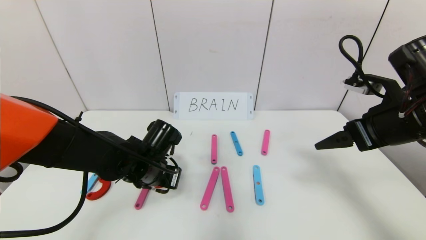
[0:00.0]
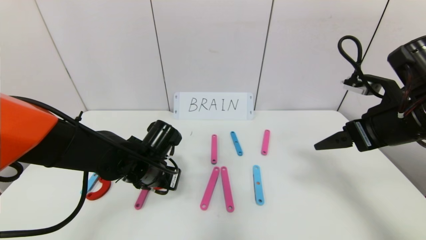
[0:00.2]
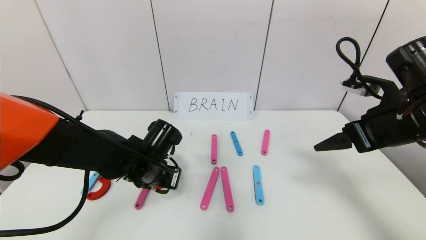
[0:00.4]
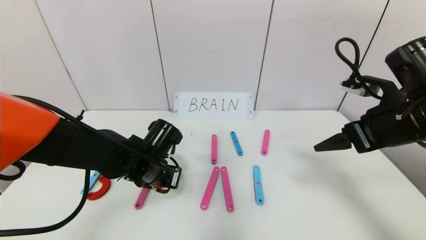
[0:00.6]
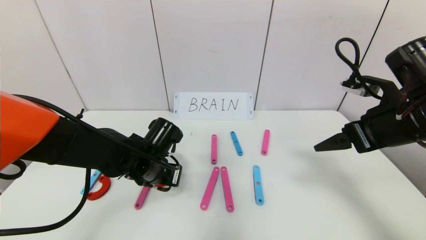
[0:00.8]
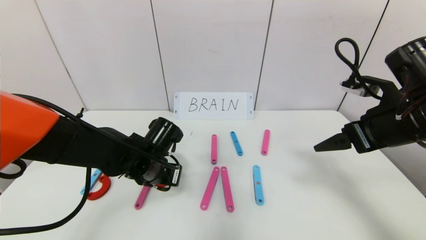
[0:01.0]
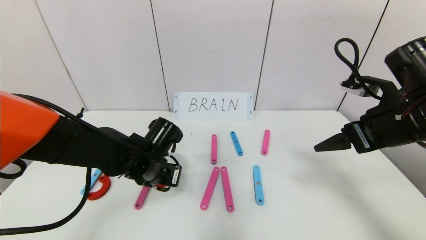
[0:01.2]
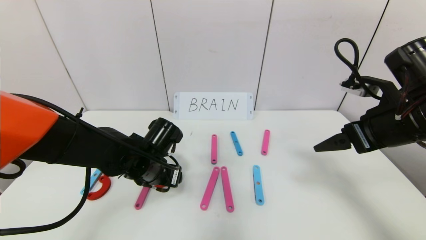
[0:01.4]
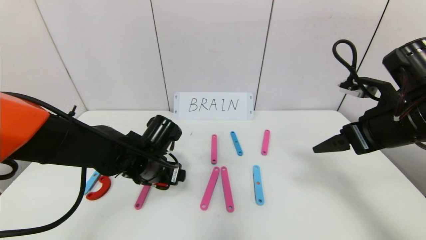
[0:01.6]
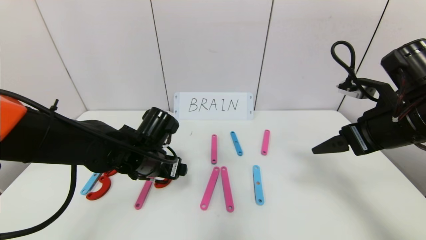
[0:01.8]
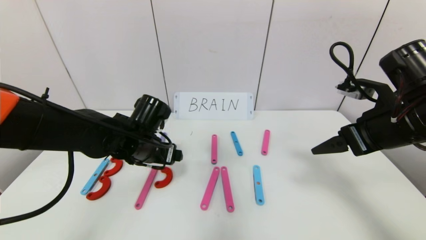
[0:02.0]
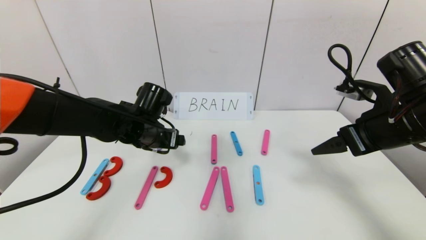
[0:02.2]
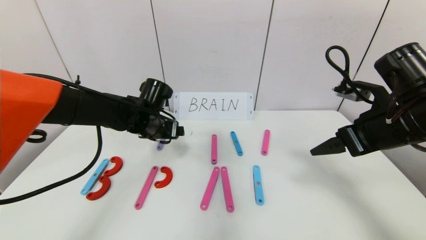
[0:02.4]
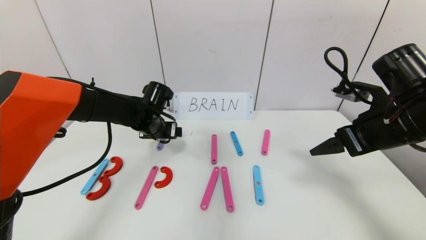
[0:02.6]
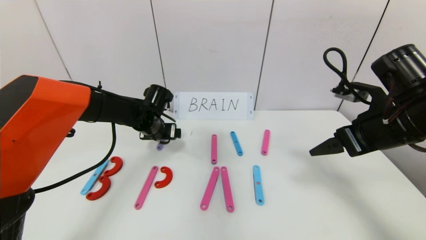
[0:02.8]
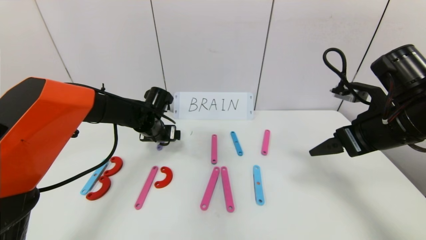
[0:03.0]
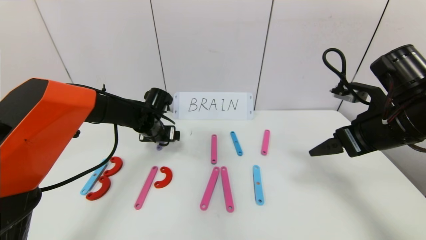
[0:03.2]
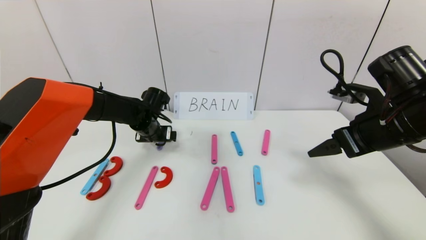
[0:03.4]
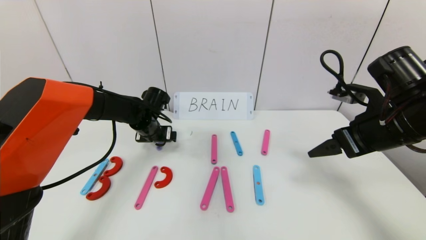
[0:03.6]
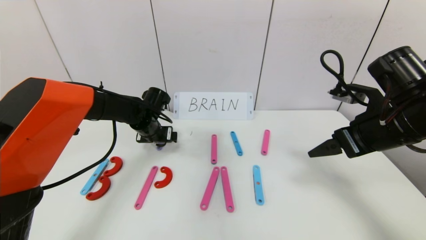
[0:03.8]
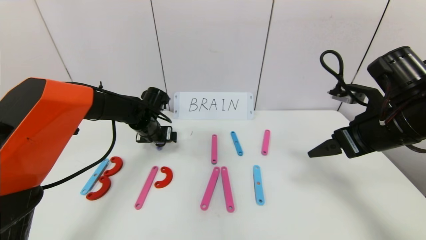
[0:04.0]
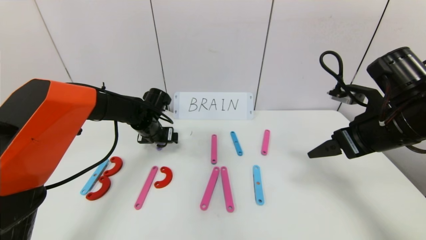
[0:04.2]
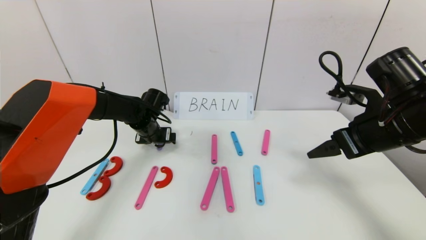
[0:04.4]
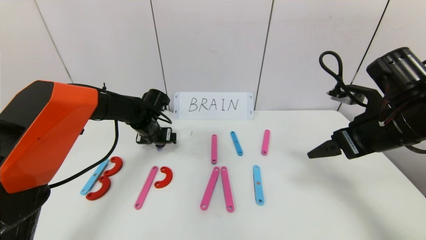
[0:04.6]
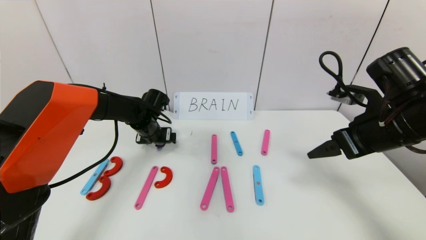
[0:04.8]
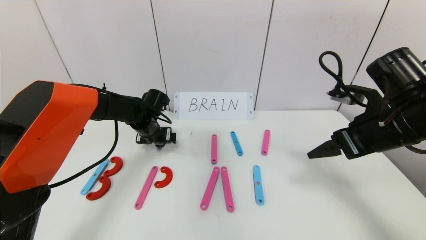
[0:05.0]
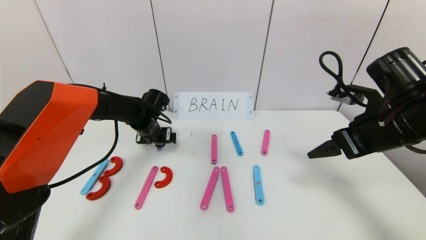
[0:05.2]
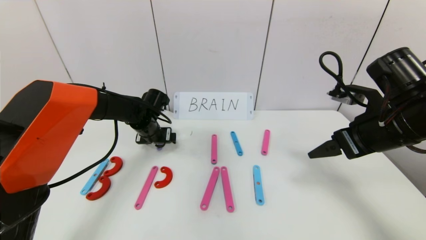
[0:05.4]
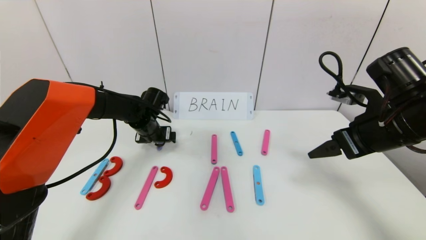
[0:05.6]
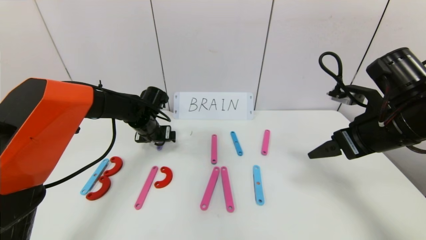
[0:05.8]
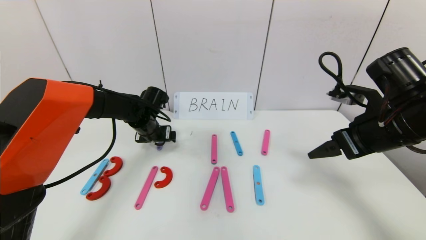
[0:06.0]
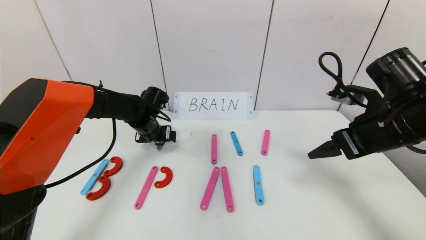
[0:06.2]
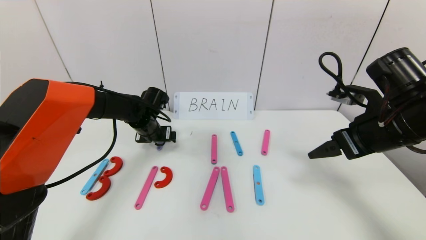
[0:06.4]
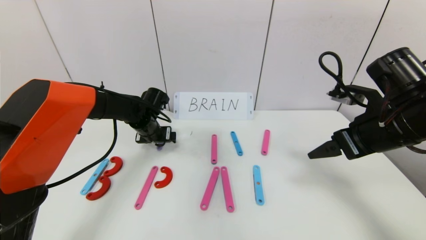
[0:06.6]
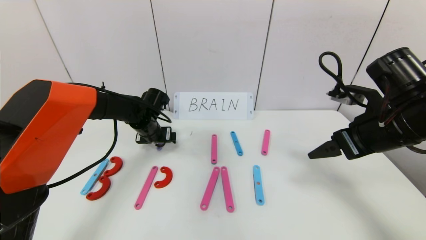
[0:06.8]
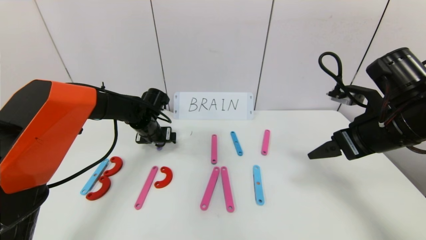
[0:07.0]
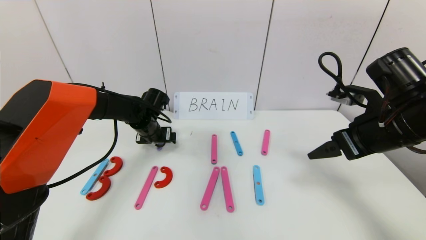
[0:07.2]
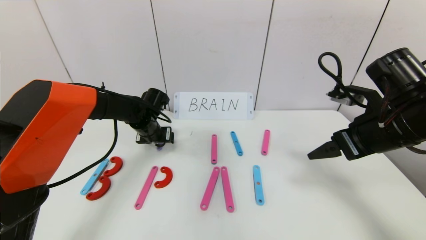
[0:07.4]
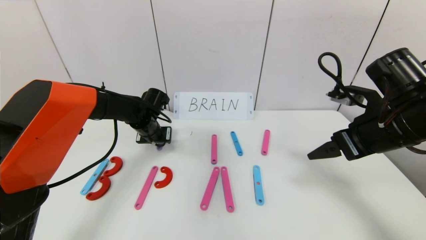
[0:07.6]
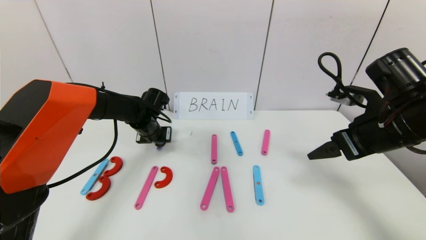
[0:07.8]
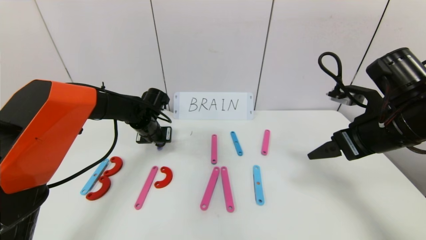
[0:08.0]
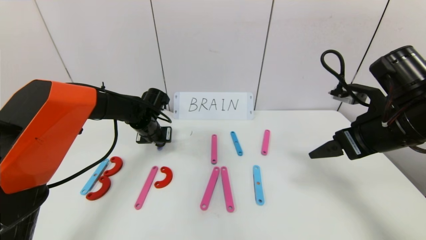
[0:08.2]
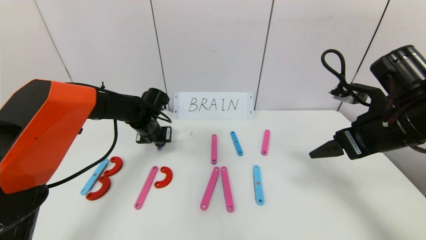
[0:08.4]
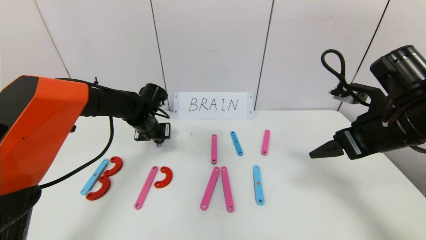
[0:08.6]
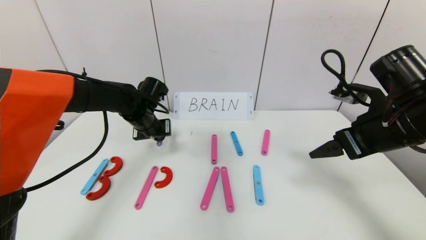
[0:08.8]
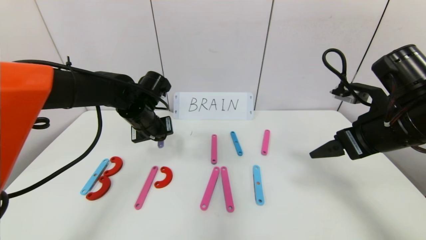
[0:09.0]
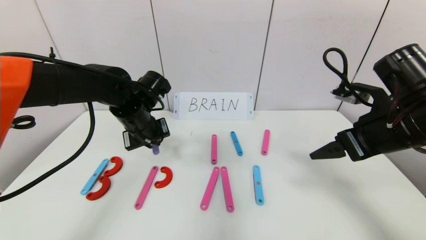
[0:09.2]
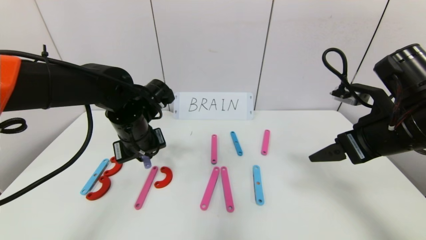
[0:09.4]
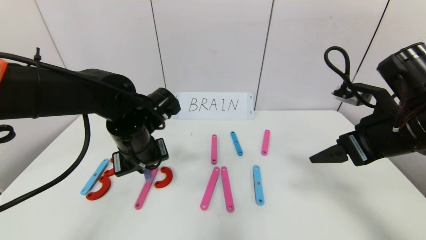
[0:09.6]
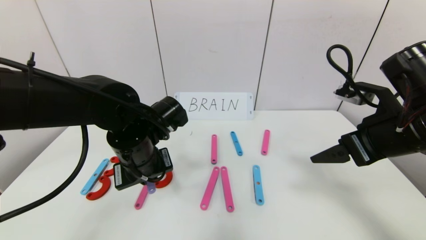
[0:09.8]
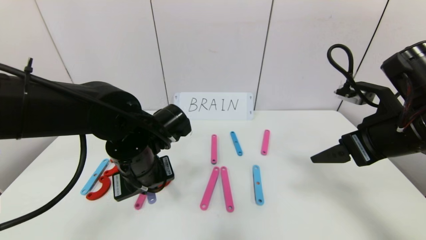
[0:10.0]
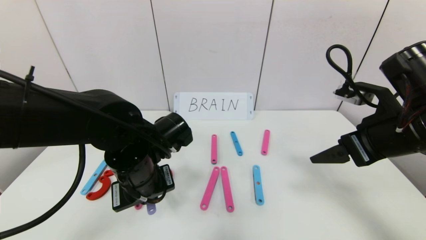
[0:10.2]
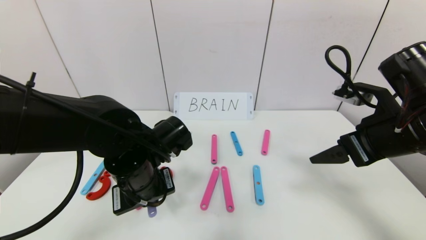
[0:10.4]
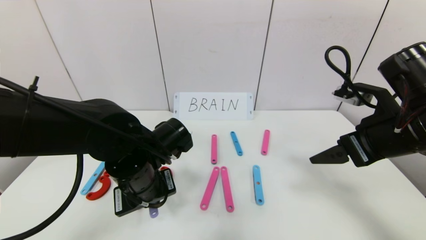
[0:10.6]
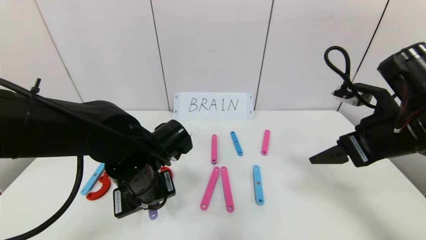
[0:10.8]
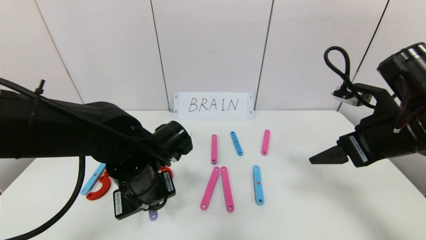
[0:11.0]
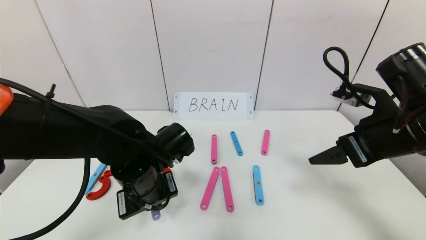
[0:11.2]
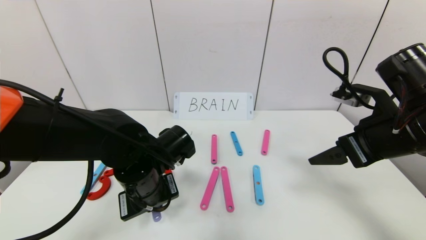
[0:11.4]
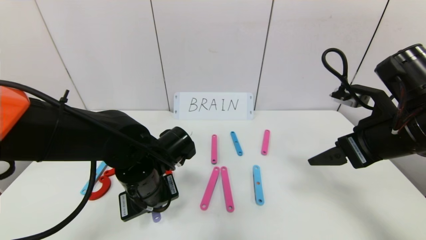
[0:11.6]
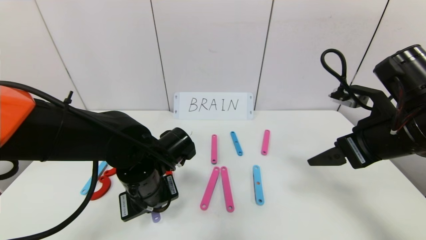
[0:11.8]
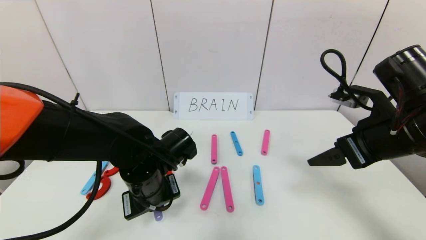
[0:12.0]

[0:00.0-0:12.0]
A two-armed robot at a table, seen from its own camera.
Task of the whole recording: rearrange the word baai as brain.
0:00.0 to 0:01.6: The left gripper opens.
0:01.6 to 0:03.0: The left gripper moves forward, some 15 cm.
0:03.0 to 0:04.4: The grippers stay close to where they were, moving slightly.
0:04.4 to 0:06.0: Both grippers stay about where they are.
0:06.0 to 0:07.6: The left gripper closes its fingers.
0:07.6 to 0:09.0: The left gripper moves upward and backward, about 10 cm, and closes its fingers.
0:09.0 to 0:10.4: The left gripper travels backward by approximately 15 cm.
0:10.4 to 0:12.0: There are only small adjustments of the grippers.

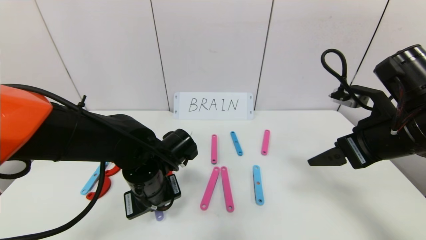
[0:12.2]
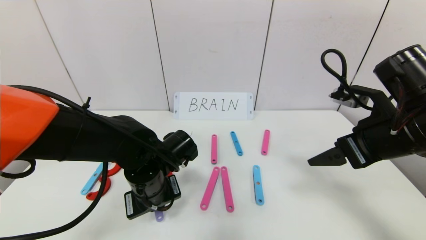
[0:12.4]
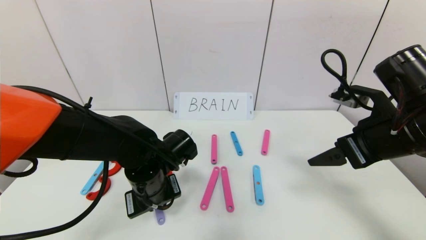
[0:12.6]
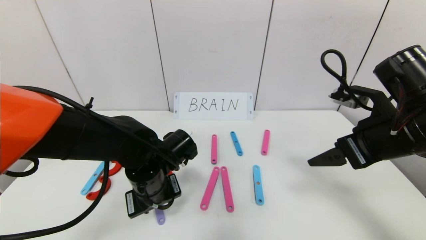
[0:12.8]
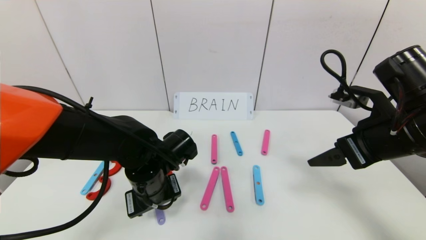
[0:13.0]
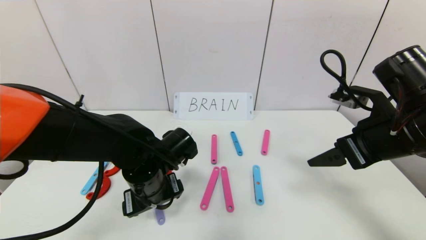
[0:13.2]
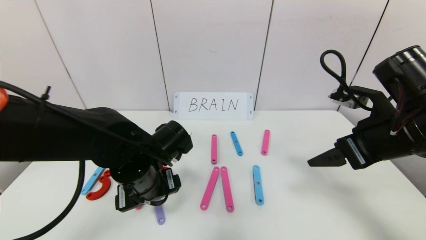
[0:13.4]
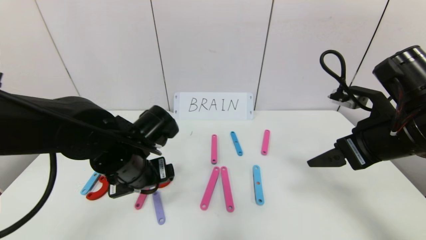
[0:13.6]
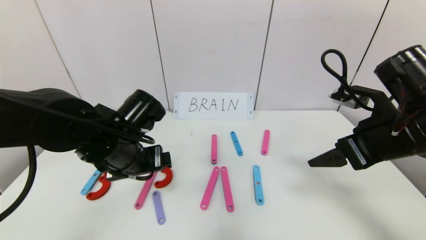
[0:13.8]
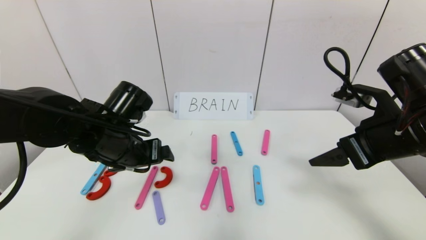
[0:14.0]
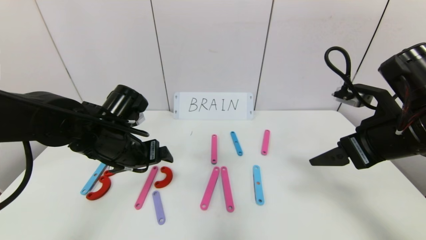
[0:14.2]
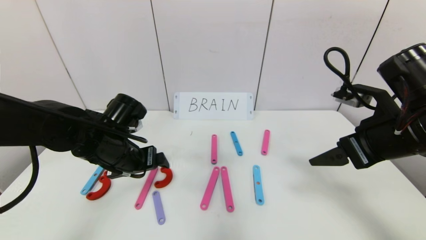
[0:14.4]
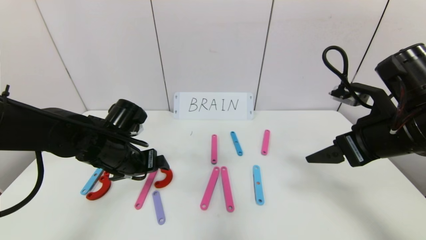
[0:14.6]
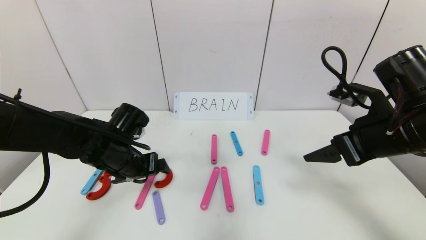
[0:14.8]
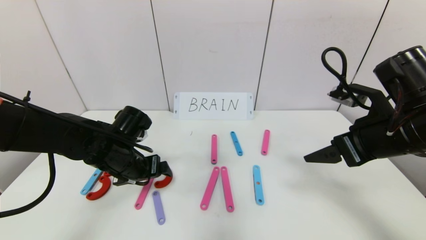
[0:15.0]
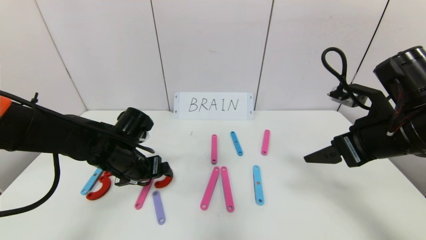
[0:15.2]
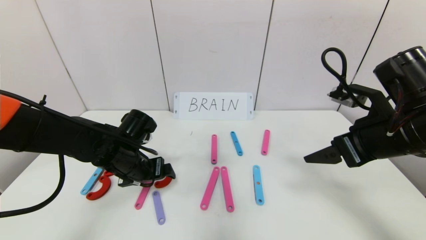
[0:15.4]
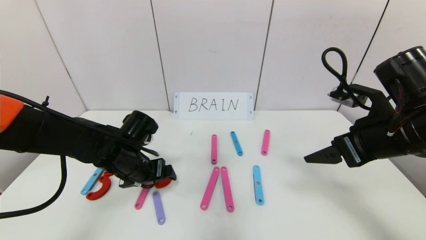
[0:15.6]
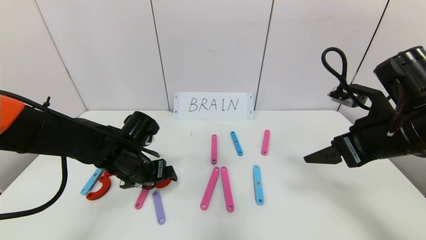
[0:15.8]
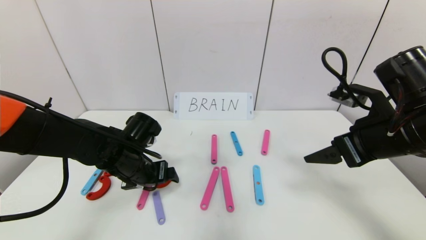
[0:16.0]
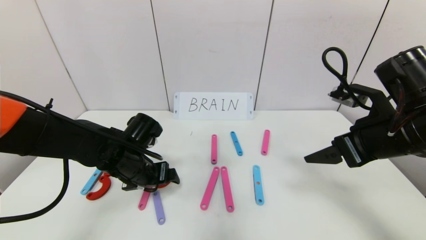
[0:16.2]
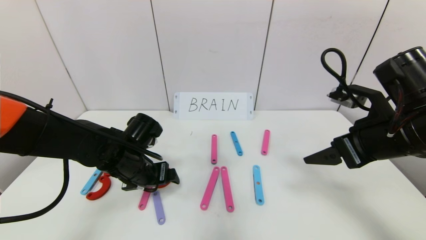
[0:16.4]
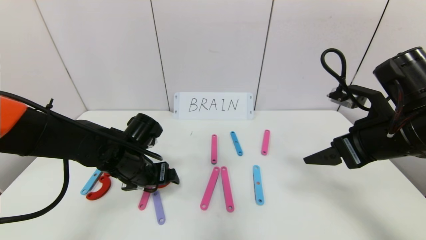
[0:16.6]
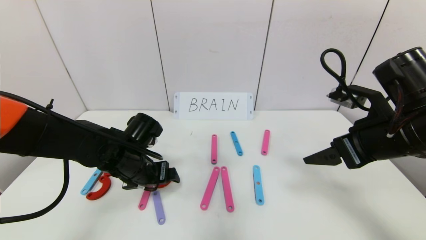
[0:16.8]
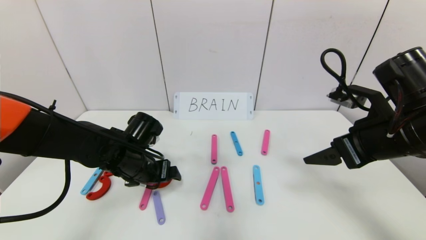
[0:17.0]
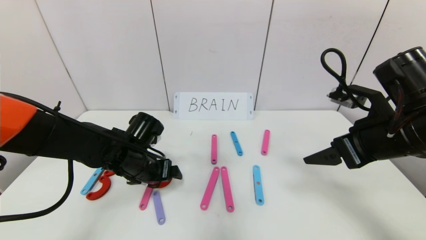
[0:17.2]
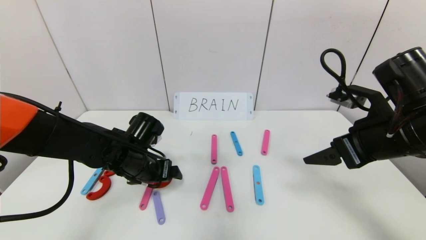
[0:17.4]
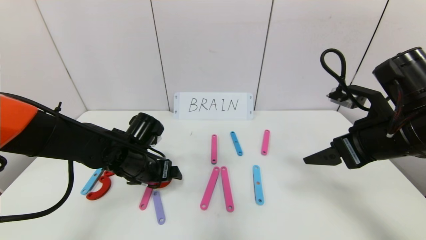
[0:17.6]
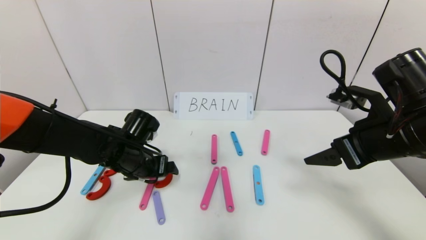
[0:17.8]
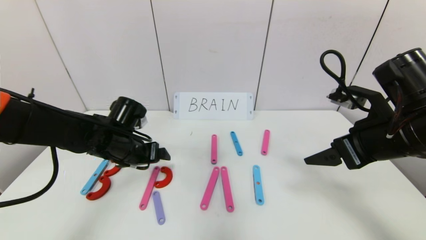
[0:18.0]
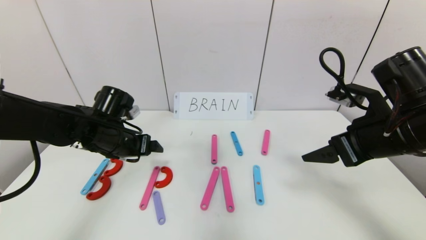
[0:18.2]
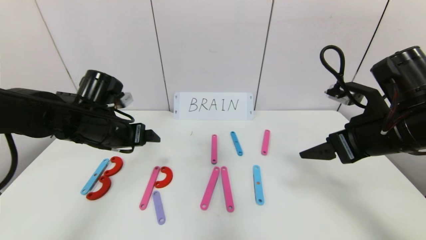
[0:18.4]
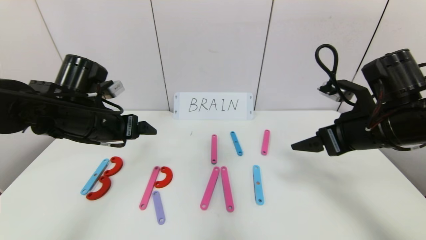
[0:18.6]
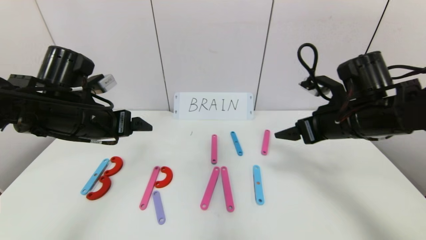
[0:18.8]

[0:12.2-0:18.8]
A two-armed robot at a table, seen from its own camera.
Task of the whole recording: rearrange the word baai as brain.
Step, 0:12.2 to 0:18.0: Place the character R between first character B and third character A.
0:12.2 to 0:13.8: The left gripper heads upward, covering about 5 cm, and opens up.
0:13.8 to 0:15.4: The left gripper is displaced downward by some 5 cm.
0:15.4 to 0:17.2: The grippers make only small movements.
0:17.2 to 0:18.8: The left gripper goes approximately 15 cm upward and to the left. The right gripper is displaced forward by about 5 cm.
